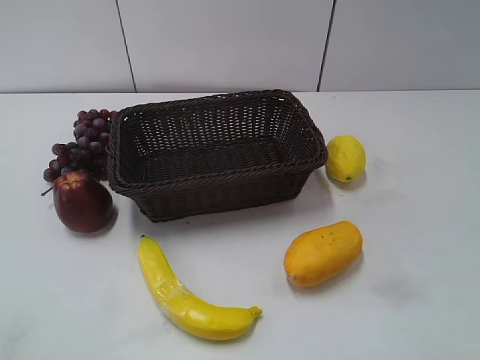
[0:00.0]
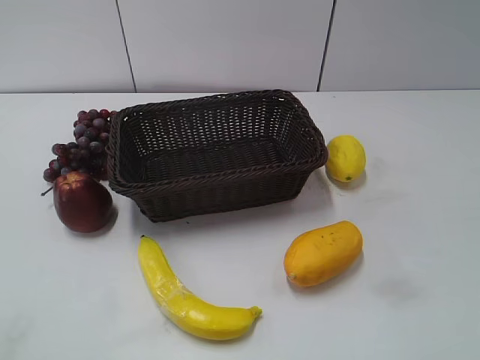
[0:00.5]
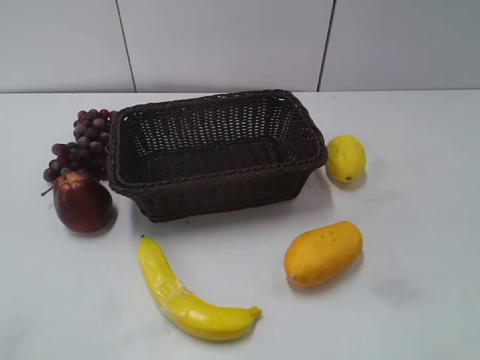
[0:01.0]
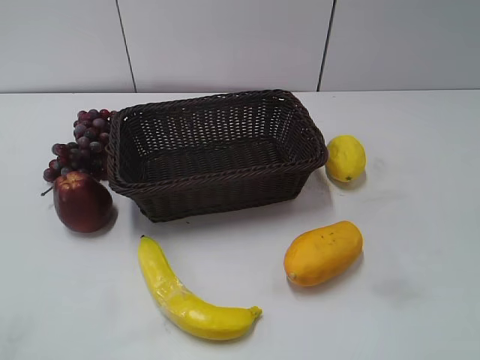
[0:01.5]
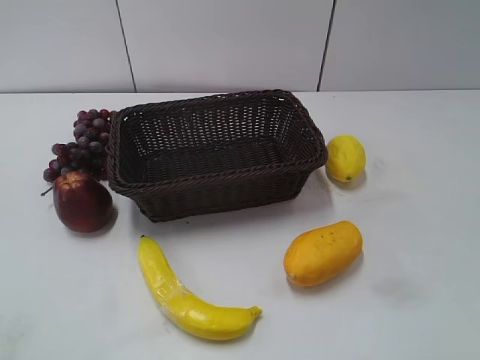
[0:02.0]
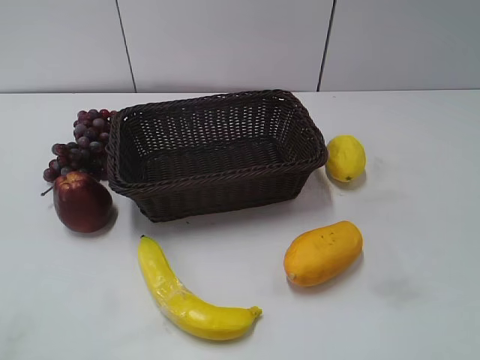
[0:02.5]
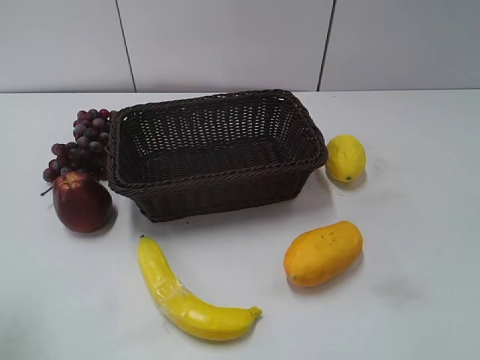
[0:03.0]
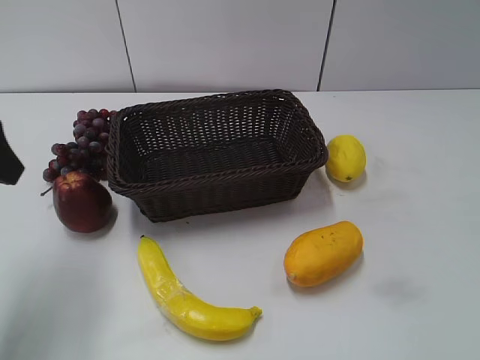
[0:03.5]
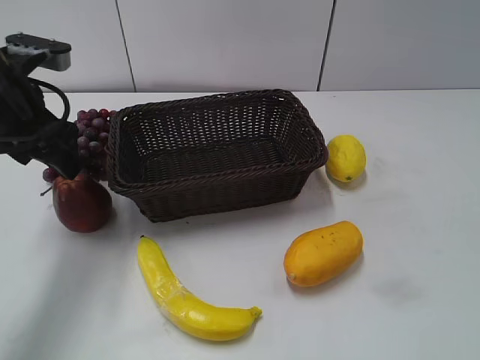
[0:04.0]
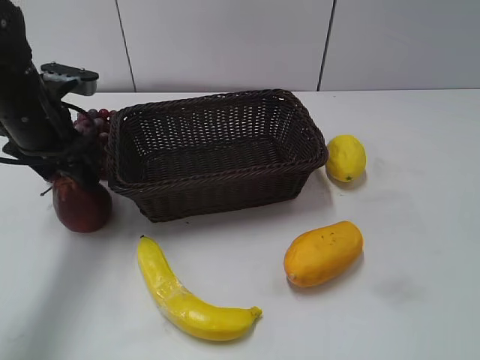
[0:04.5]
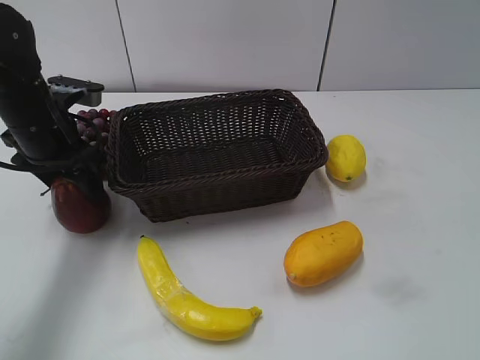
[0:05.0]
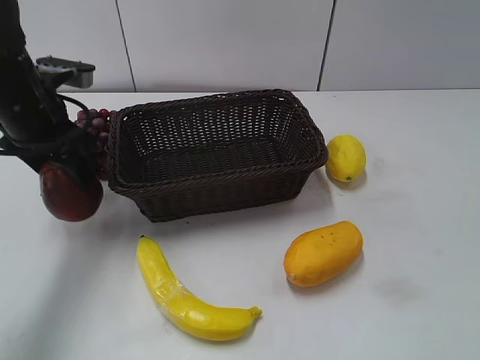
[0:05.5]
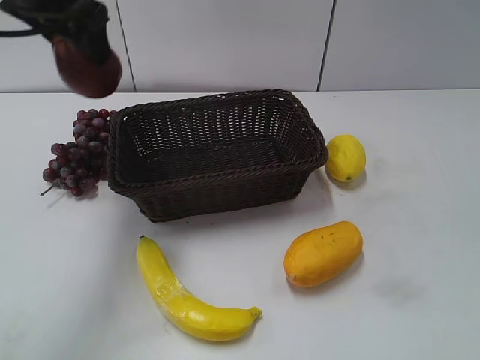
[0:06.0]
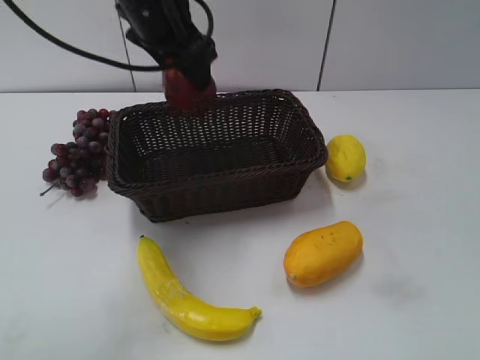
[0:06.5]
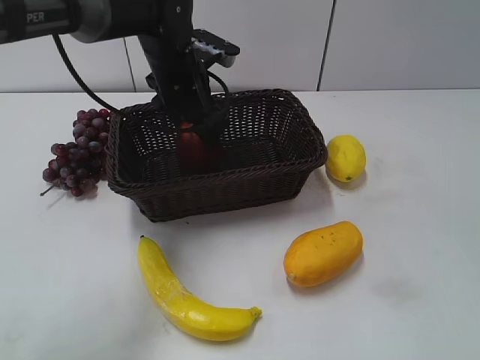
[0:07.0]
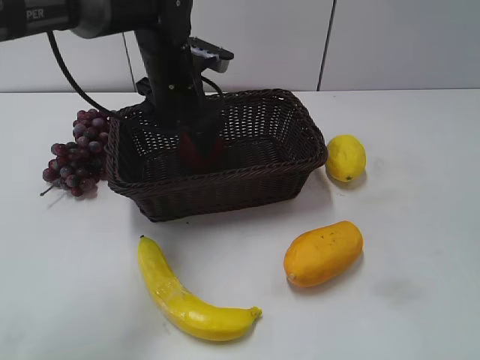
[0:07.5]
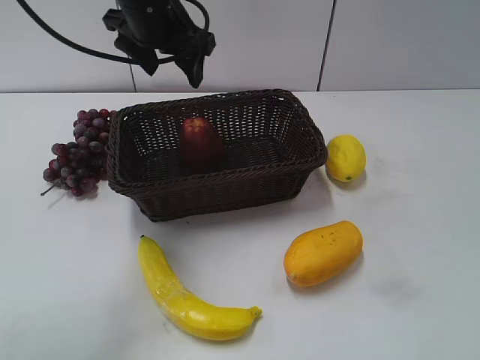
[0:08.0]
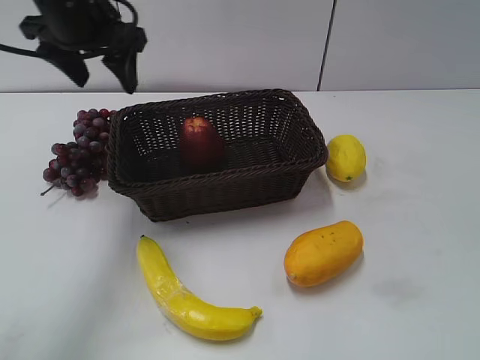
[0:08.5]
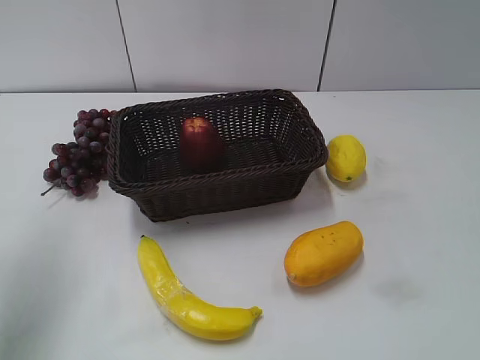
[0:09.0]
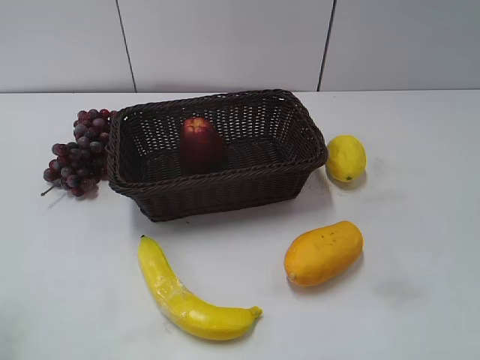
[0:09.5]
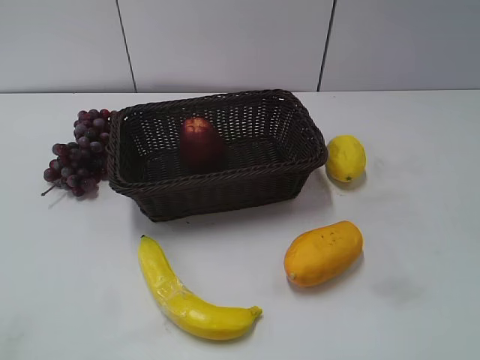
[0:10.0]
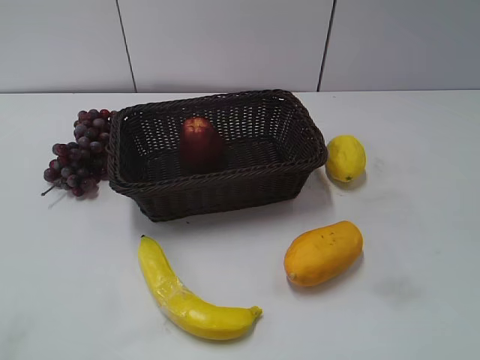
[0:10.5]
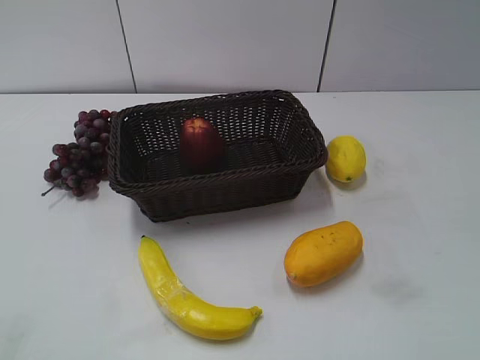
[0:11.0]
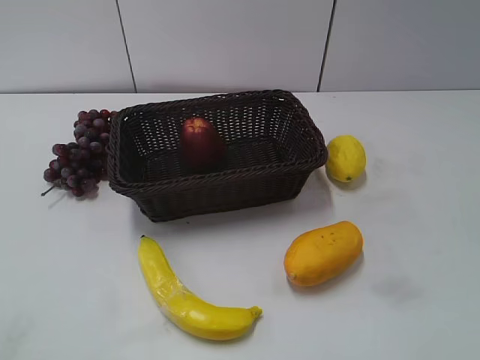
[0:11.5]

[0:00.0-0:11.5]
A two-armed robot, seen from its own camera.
Step, 3.5 to 4.5 s: Grasp the apple with left gripper.
Step, 5.0 to 7.0 s: Place the apple in the basket with left gripper.
2.0 to 4.0 s: The left gripper heads forward, covering roughly 35 cm, and opens up.
4.0 to 6.0 s: The left gripper shifts roughly 15 cm upward and to the right.
6.0 to 7.5 s: The left gripper goes about 20 cm downward and to the right, and opens its fingers.
7.5 to 9.5 s: The left gripper moves backward and to the left, roughly 40 cm.

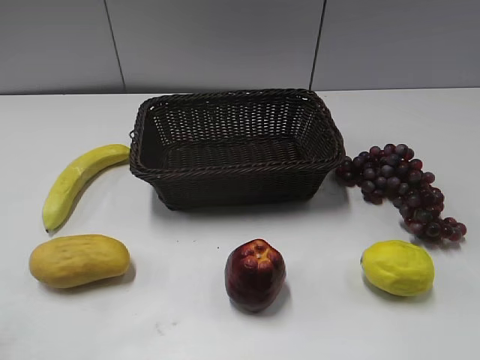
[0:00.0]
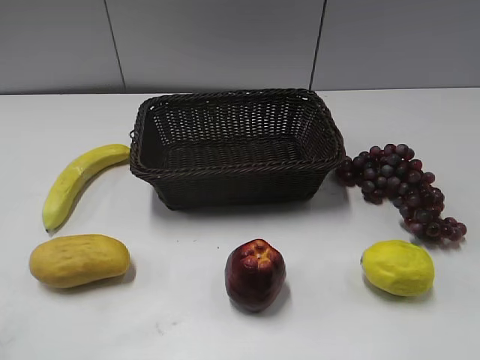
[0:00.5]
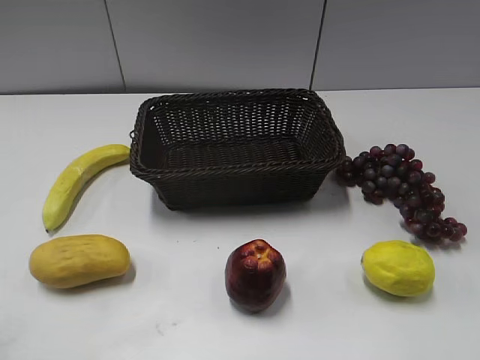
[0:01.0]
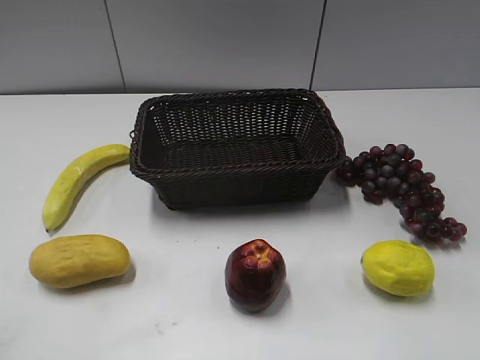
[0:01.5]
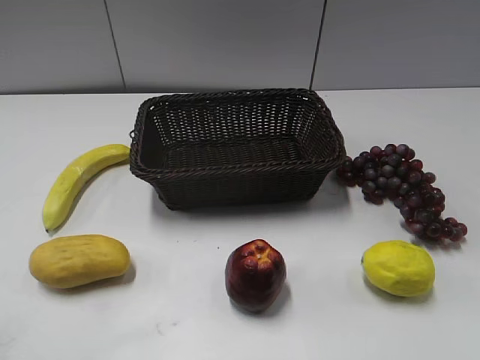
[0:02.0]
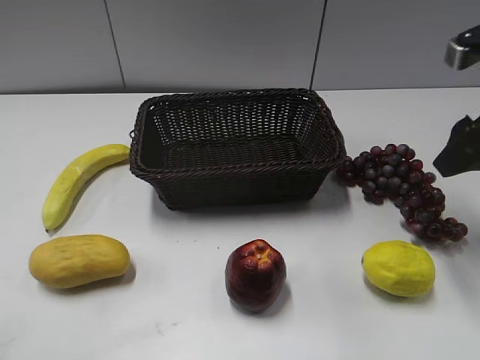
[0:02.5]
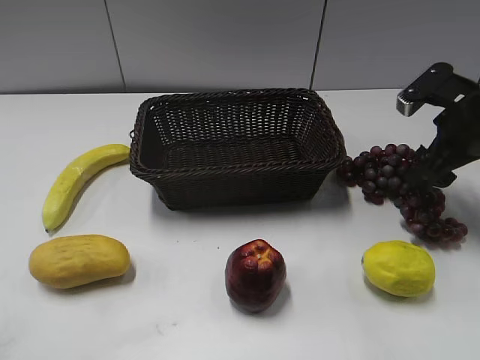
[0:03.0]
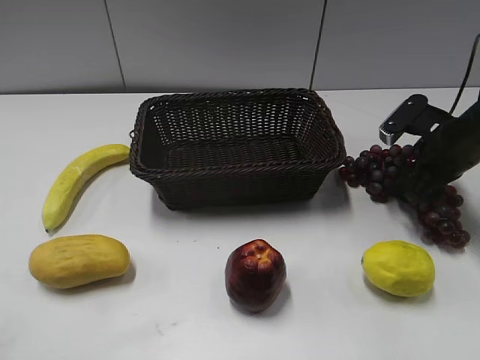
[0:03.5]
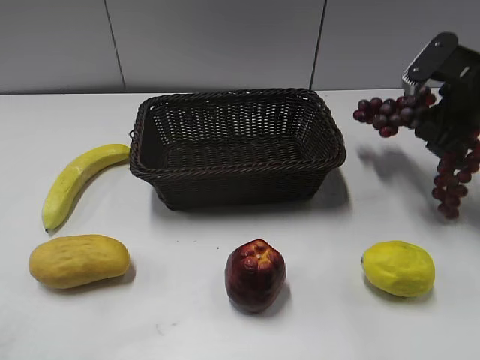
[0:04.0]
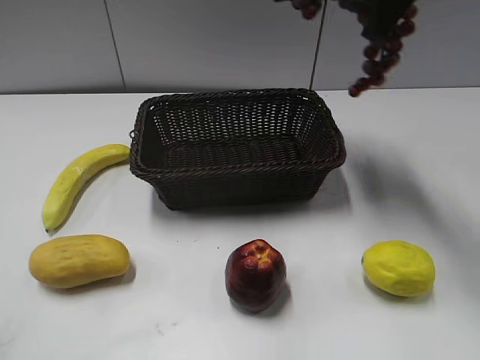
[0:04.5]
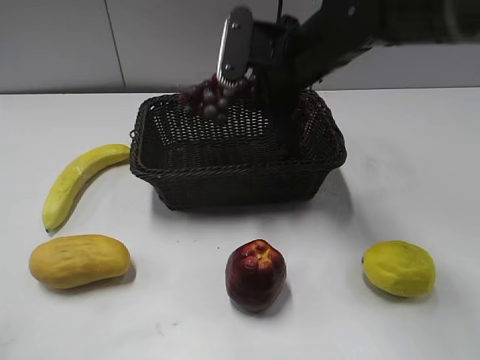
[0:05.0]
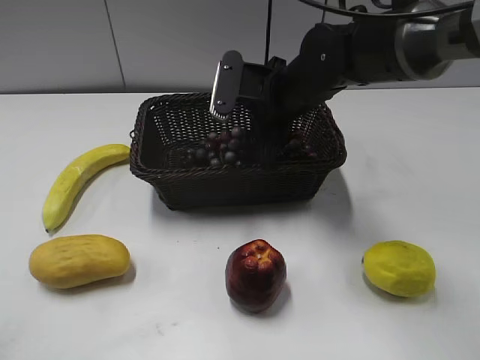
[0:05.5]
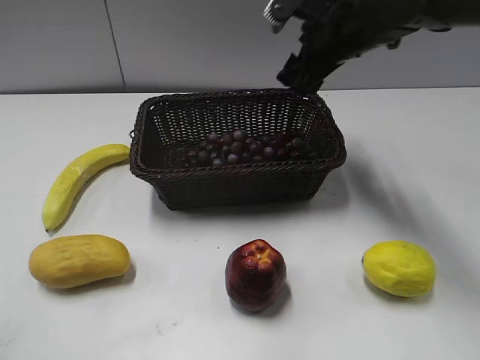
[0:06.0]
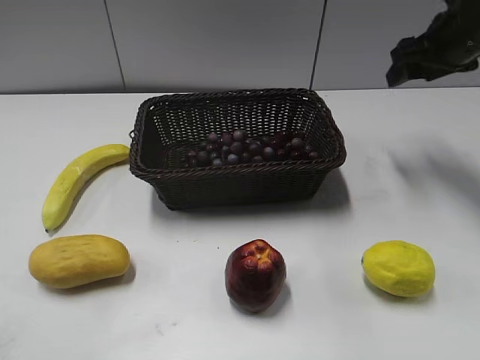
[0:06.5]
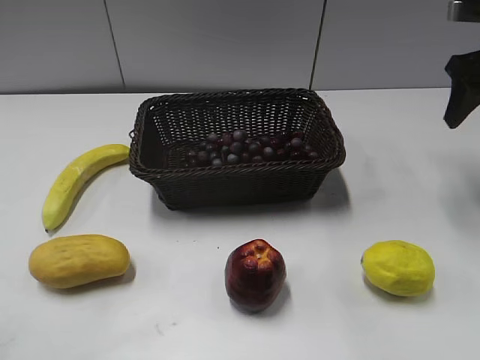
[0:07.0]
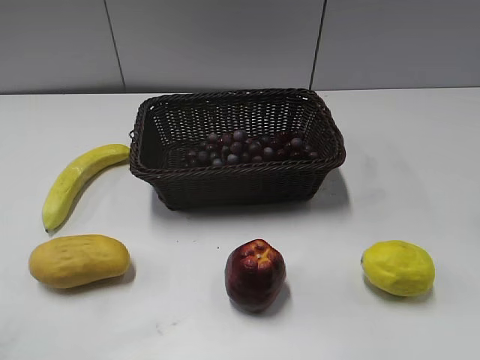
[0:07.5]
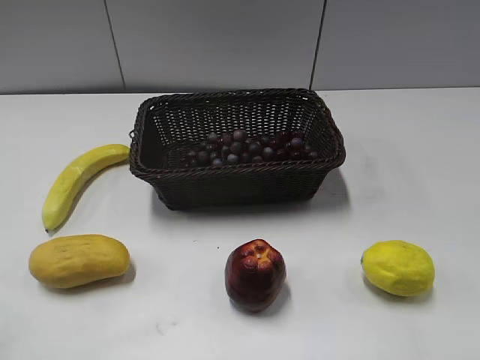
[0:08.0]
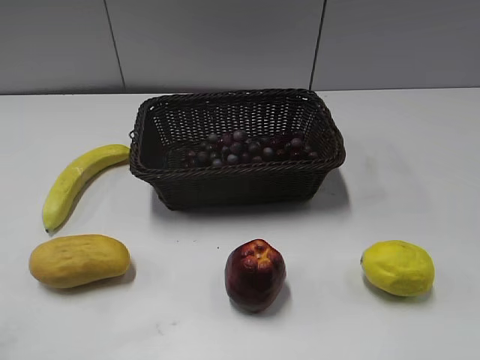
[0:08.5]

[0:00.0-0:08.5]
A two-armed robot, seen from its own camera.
Step, 2.5 to 3.5 s: Grasp the grape with right gripper.
Step, 4.0 to 5.5 s: Place the grape in the basket with right gripper.
2.0 to 4.0 s: The right gripper moves forward and downward, approximately 25 cm, and closes its fingers.
4.0 to 6.5 s: The right gripper is displaced forward by roughly 5 cm, moves approximately 20 cm to the left and comes back, and opens.
6.5 to 8.5 s: The right gripper moves backward, some 35 cm.

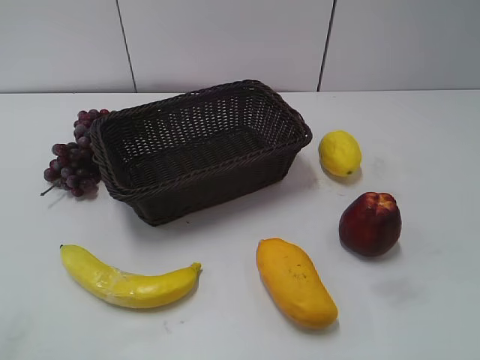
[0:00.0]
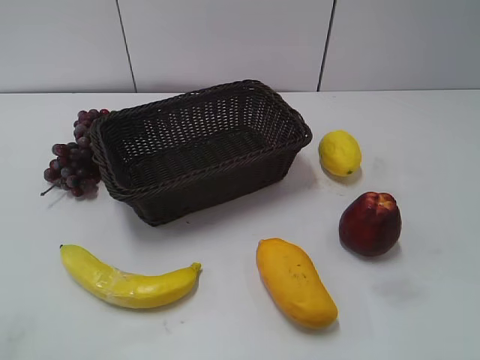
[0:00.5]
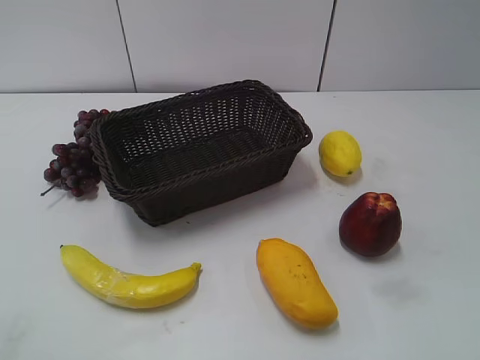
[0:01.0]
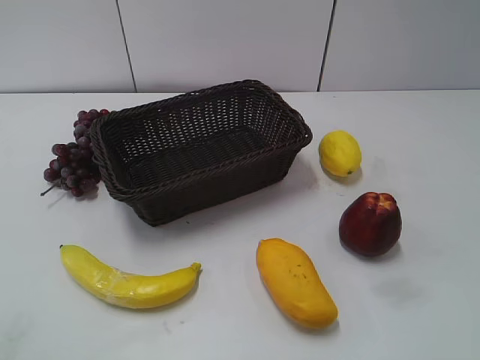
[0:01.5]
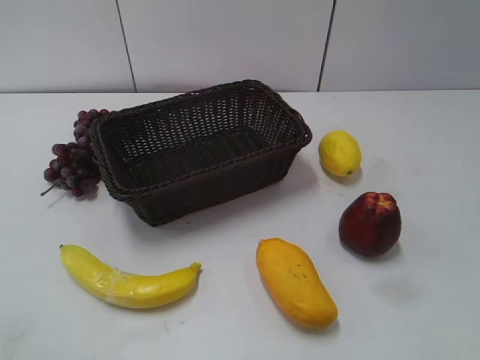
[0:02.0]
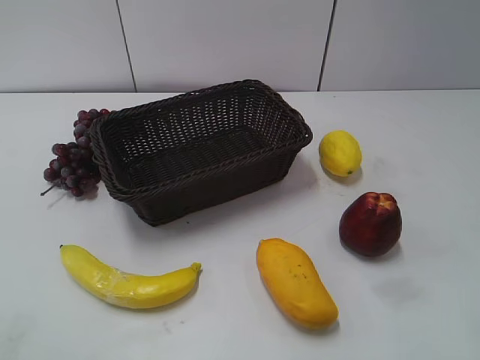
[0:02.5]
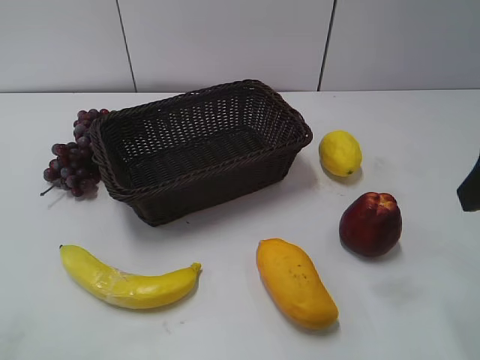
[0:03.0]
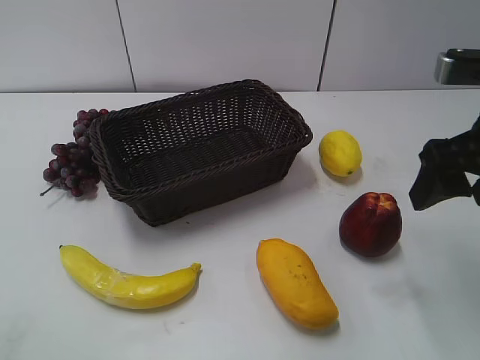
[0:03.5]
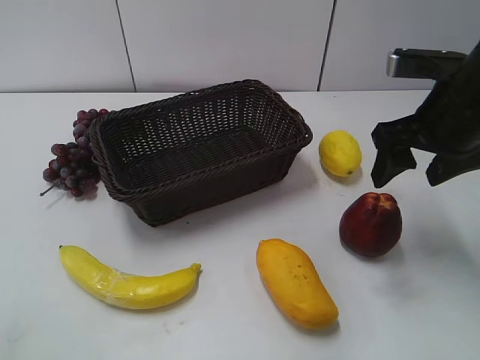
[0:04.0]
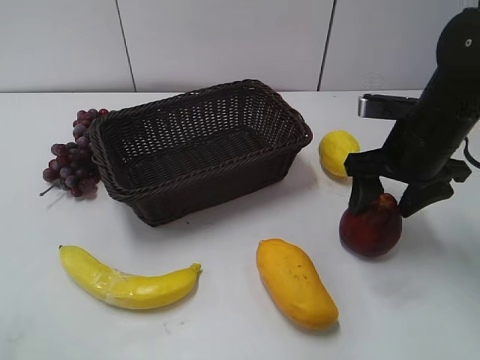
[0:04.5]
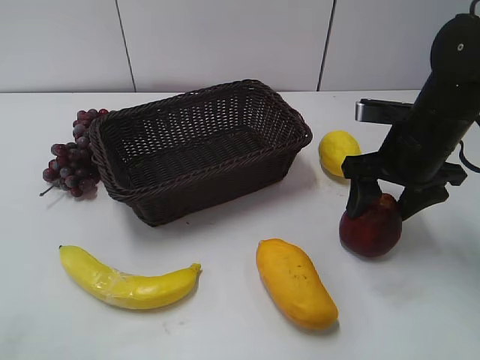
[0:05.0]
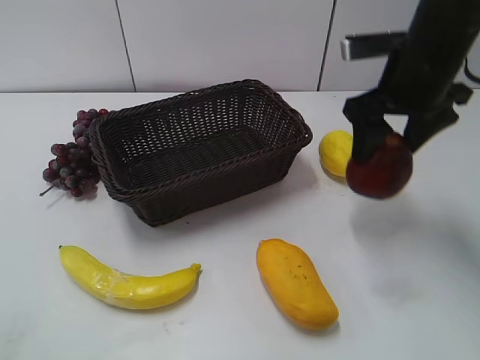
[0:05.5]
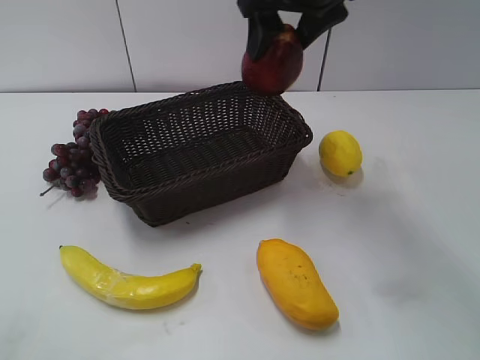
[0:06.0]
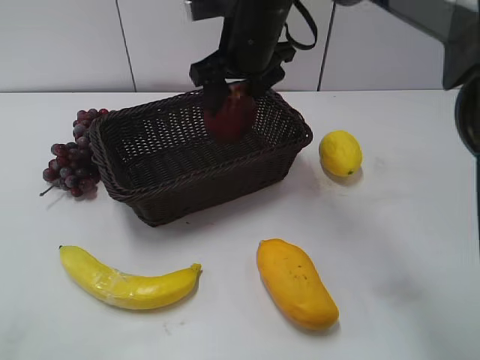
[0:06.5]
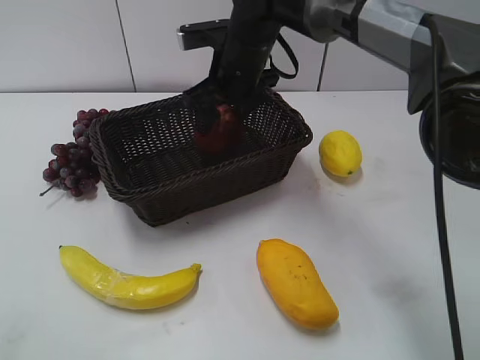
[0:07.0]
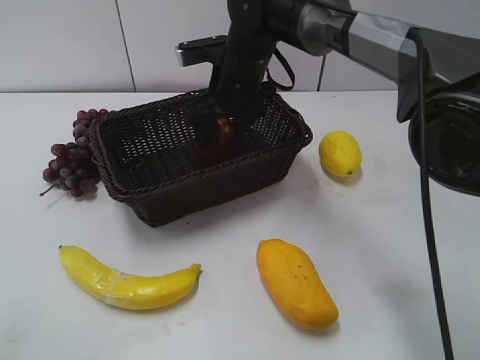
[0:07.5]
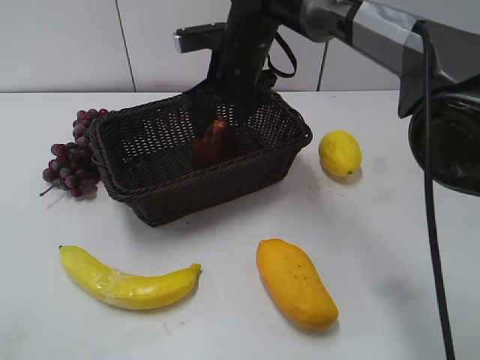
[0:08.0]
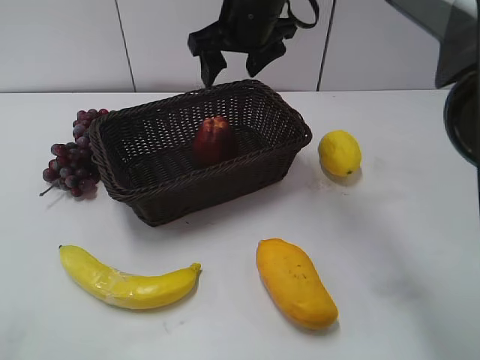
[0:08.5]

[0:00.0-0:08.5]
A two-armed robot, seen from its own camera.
Step, 3.0 to 4.5 s: Grasp the apple with right gripper.
Step, 5.0 to 7.5 s: Place the apple in the basket with right gripper.
2.0 to 4.0 s: The right gripper heads forward, covering roughly 25 cm.
4.0 to 6.5 s: The right gripper moves to the left and forward, some 25 cm.
6.5 to 8.5 s: The grippers make only small movements.
